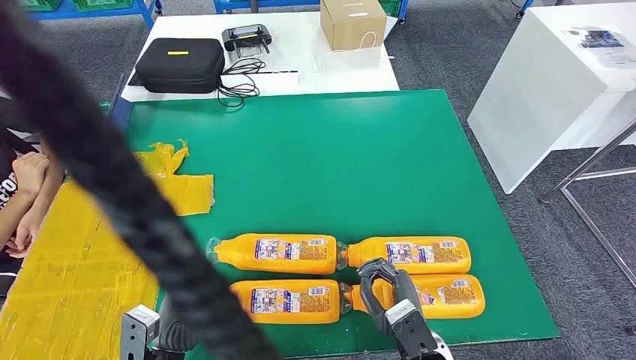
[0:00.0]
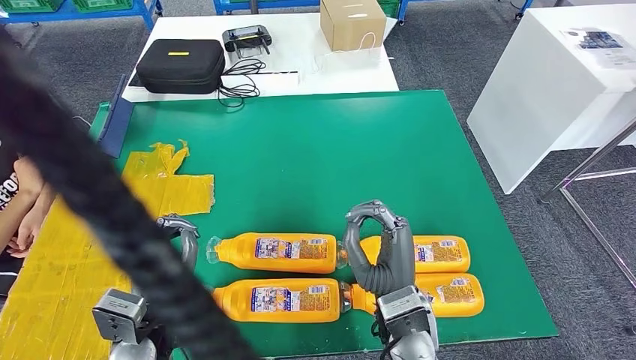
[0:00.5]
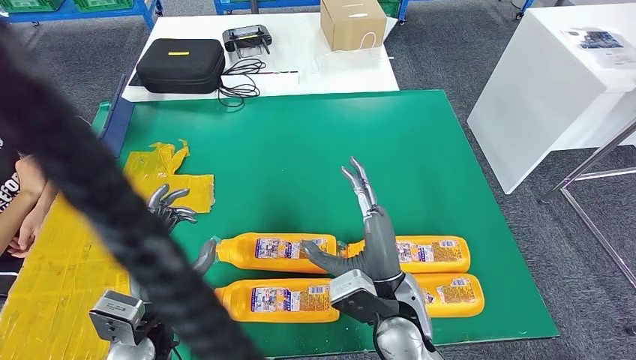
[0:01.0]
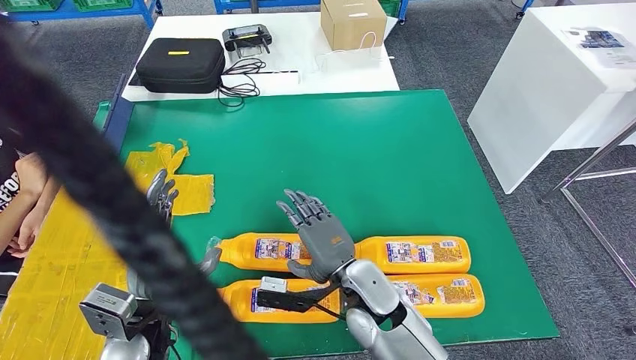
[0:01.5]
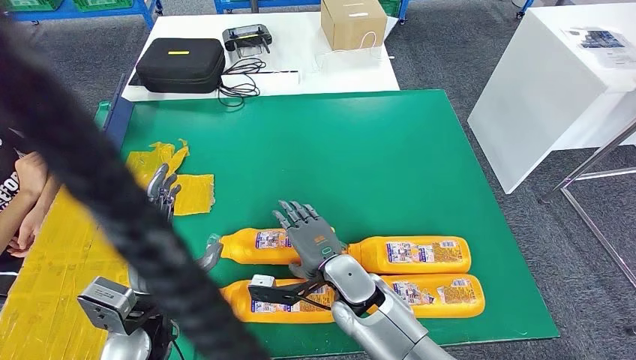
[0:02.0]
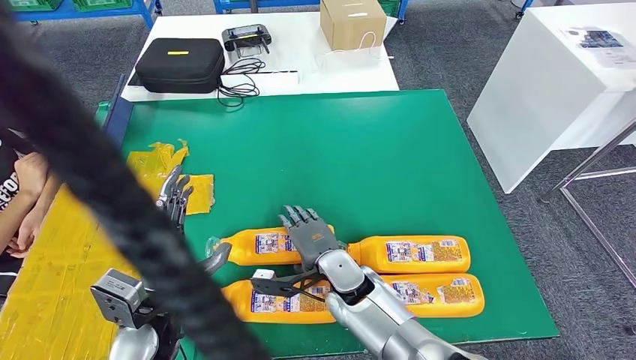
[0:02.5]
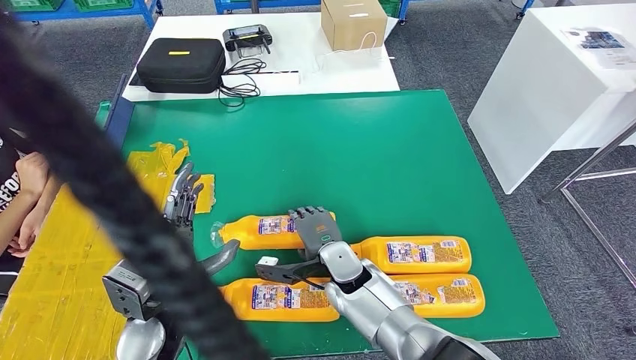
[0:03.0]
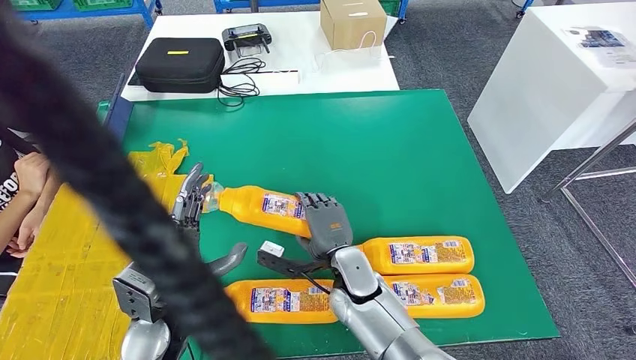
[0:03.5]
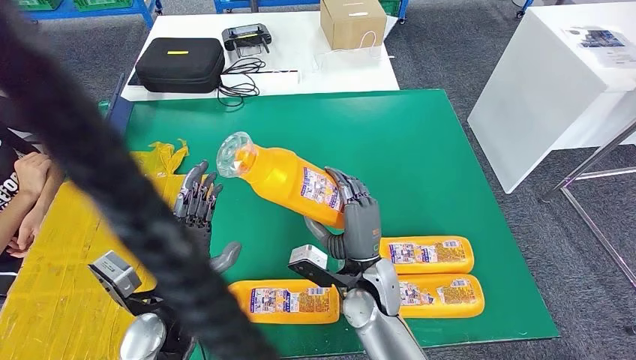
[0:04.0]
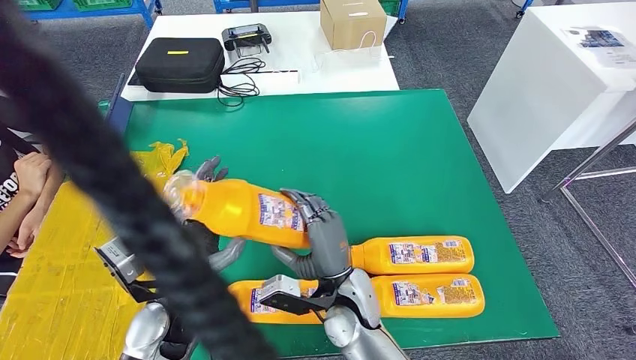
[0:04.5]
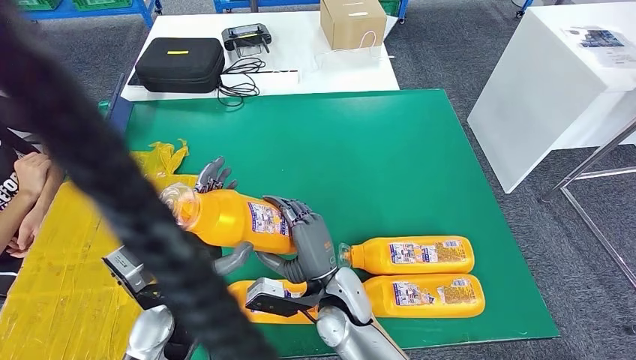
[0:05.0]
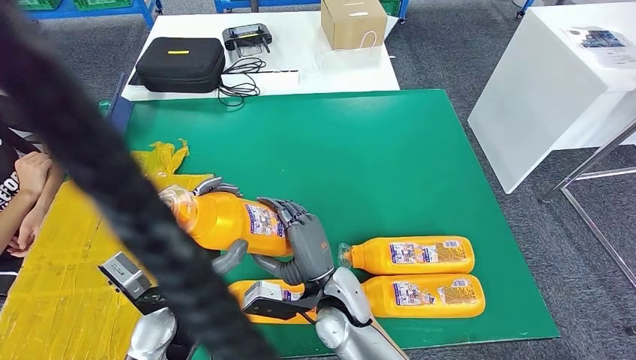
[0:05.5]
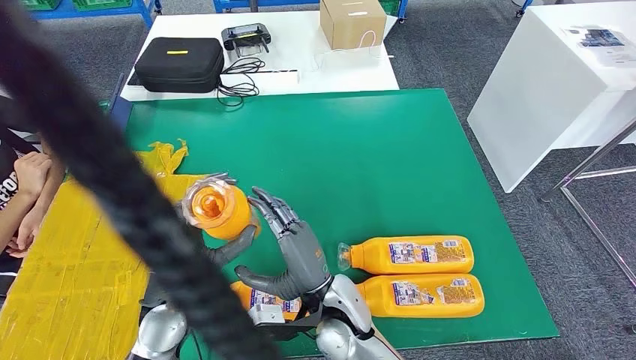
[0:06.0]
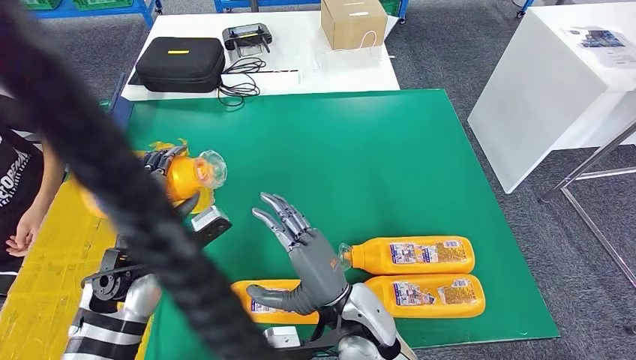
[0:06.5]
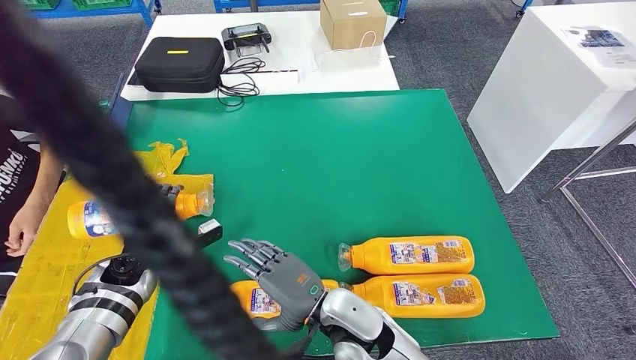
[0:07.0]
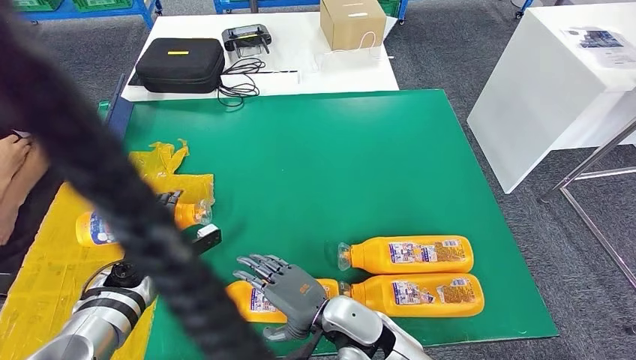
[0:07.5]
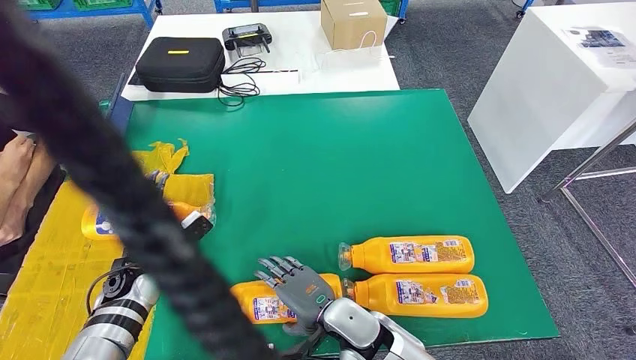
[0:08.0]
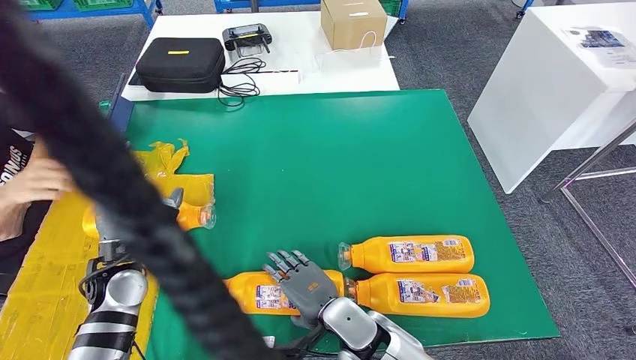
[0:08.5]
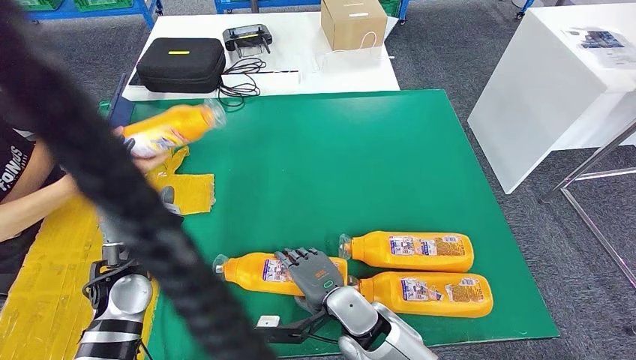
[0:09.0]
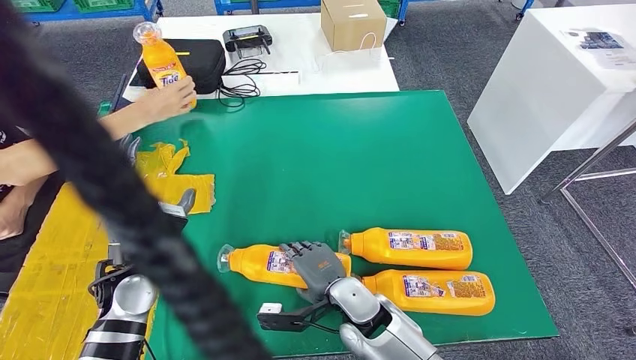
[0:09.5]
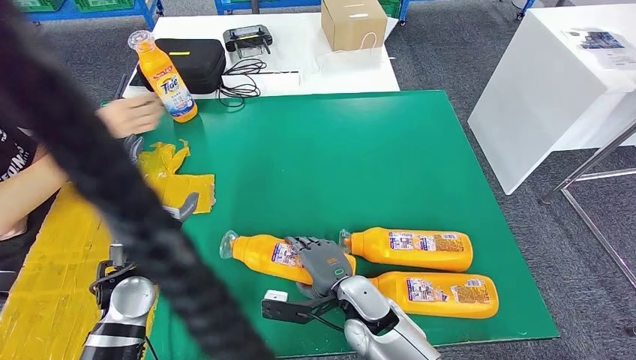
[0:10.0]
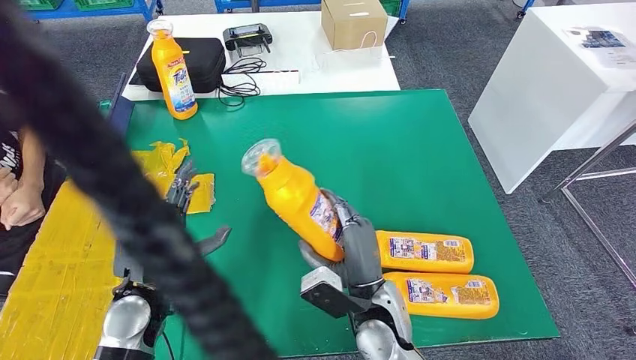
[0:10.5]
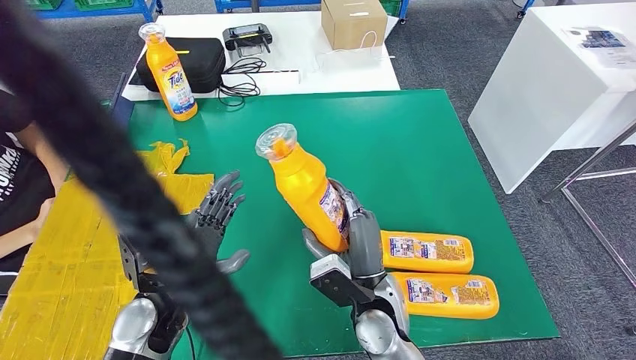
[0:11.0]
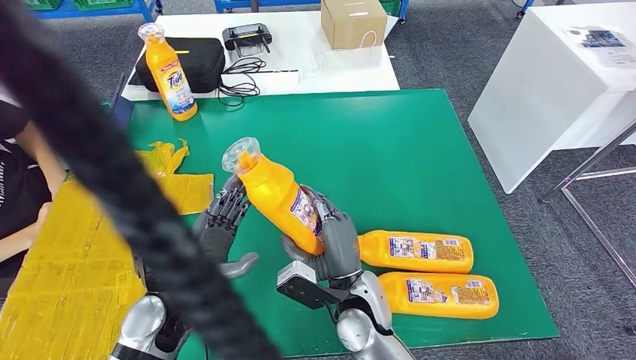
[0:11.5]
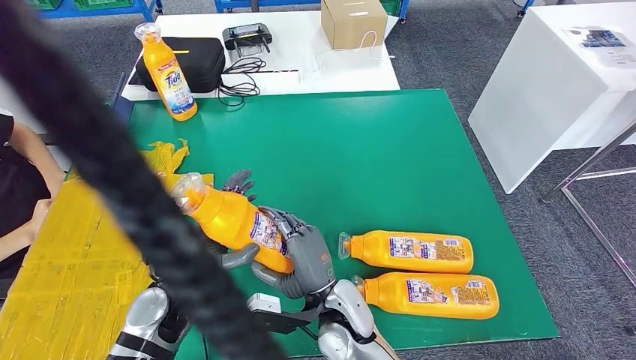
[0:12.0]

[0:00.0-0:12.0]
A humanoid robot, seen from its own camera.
Step, 0:00.0 to 0:05.0: Take the bottle from the table.
Step, 0:05.5 to 0:08.0: Flip the bottle to face forward.
Step, 0:08.5 to 0:11.5: Pick up the bottle from the table.
0:04.0 to 0:06.0: The right hand moves to the left, some 5 cm.
0:06.0 to 0:08.0: The right hand changes place by about 5 cm; the left hand goes approximately 20 cm to the left, downward and forward.

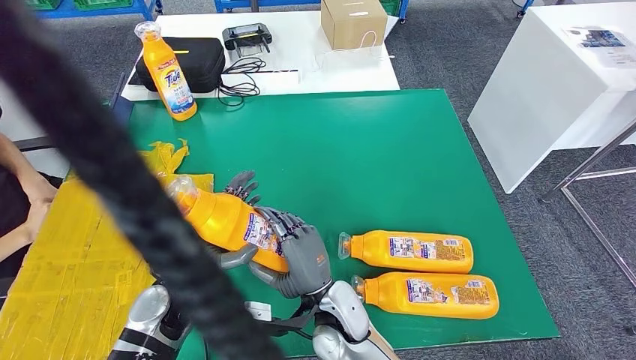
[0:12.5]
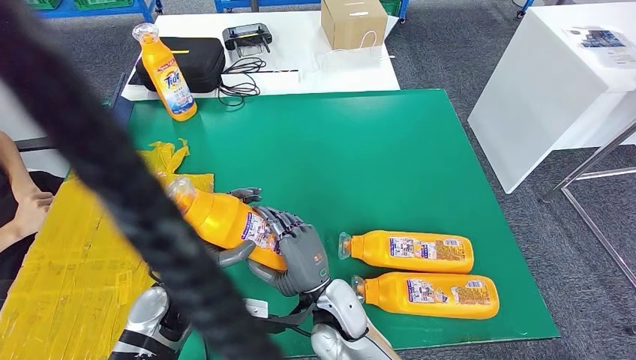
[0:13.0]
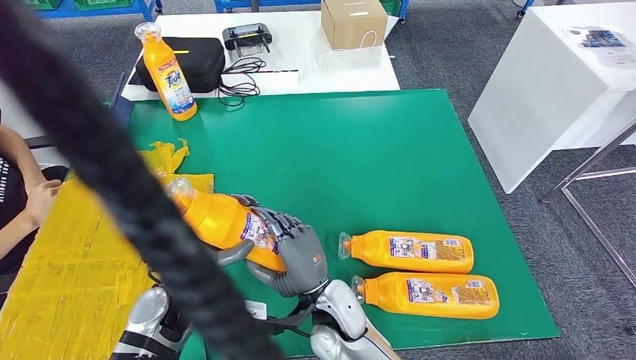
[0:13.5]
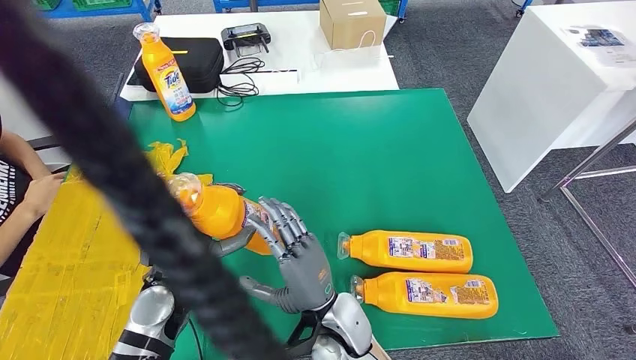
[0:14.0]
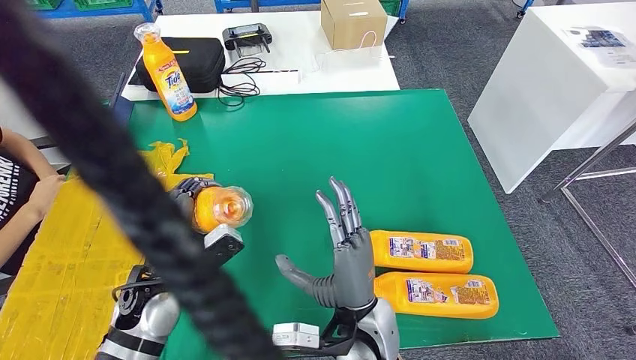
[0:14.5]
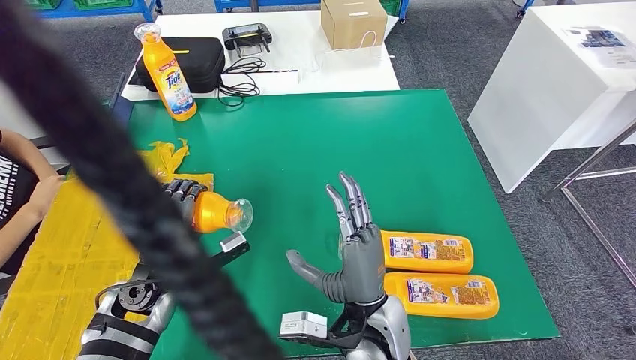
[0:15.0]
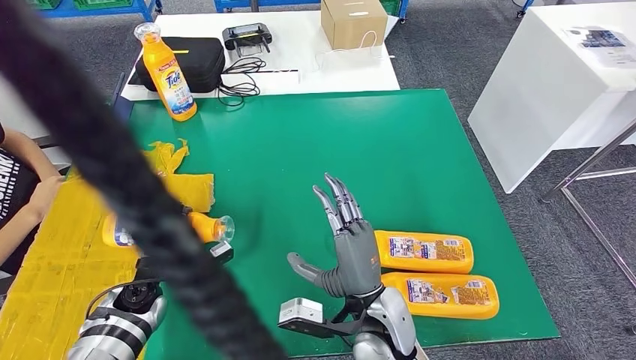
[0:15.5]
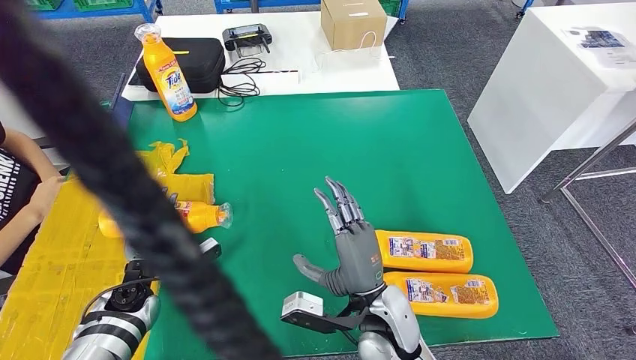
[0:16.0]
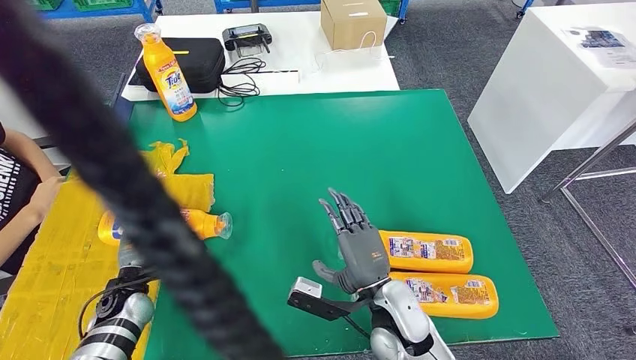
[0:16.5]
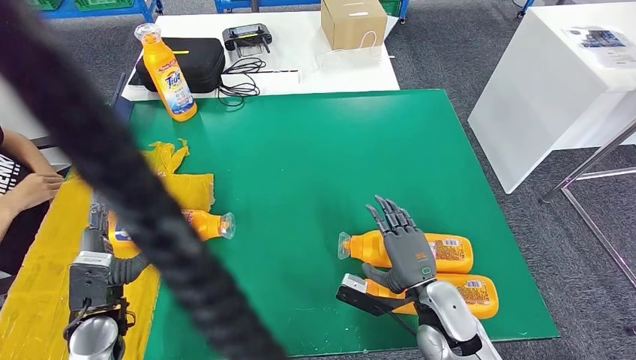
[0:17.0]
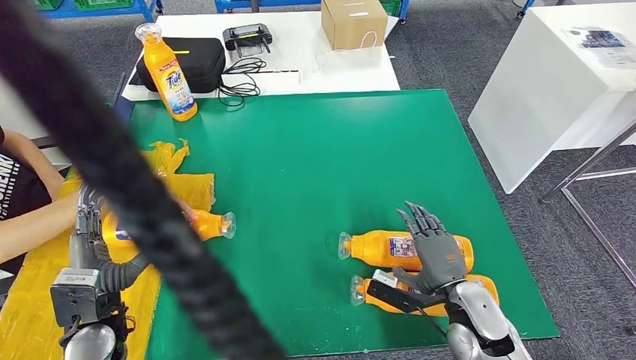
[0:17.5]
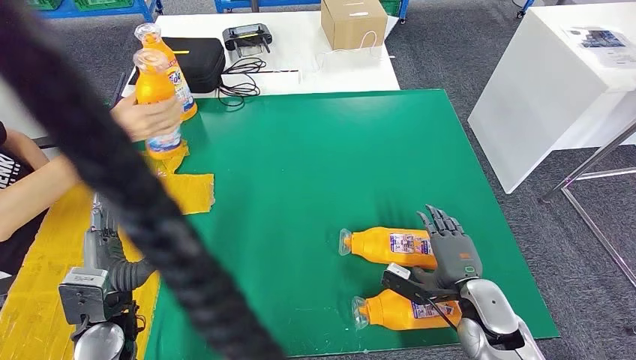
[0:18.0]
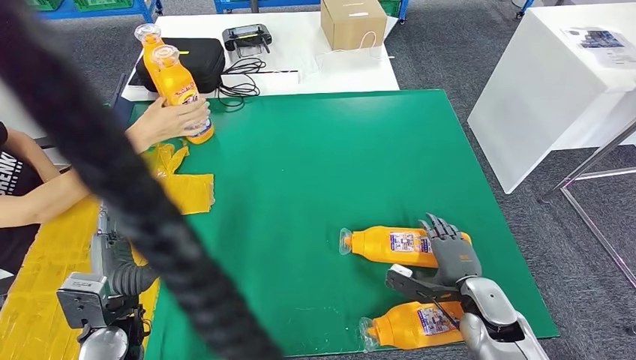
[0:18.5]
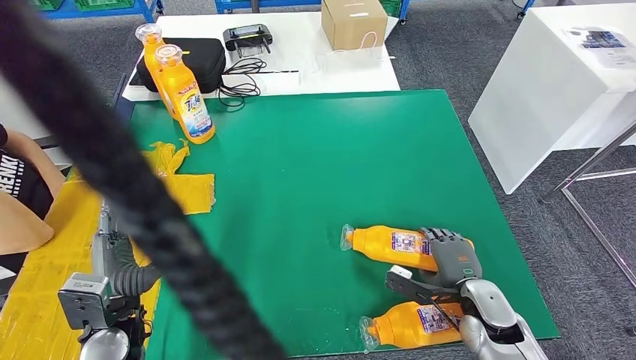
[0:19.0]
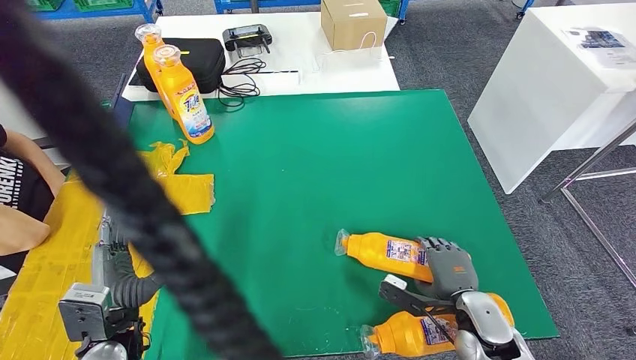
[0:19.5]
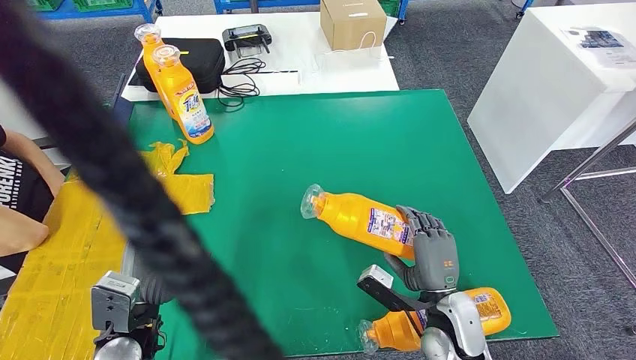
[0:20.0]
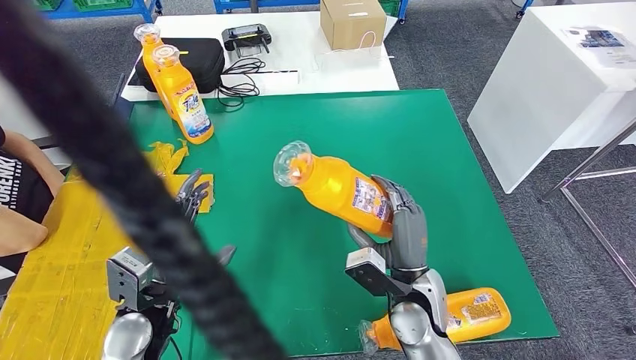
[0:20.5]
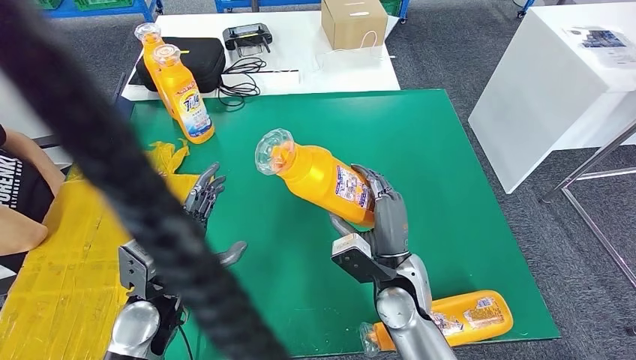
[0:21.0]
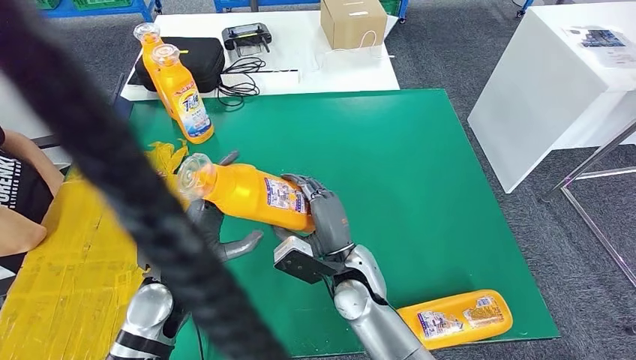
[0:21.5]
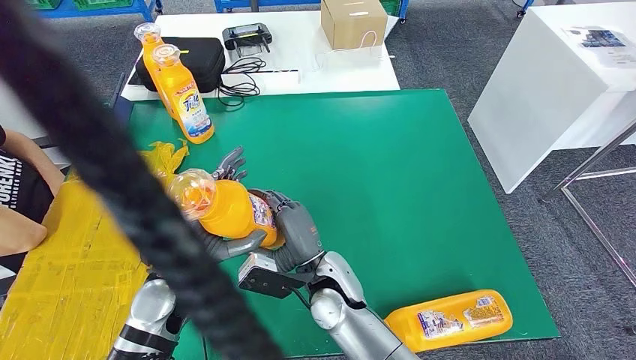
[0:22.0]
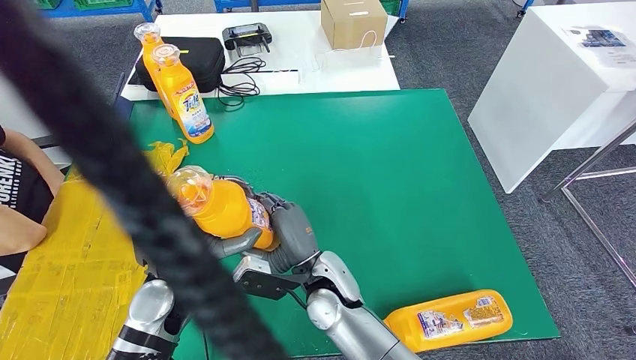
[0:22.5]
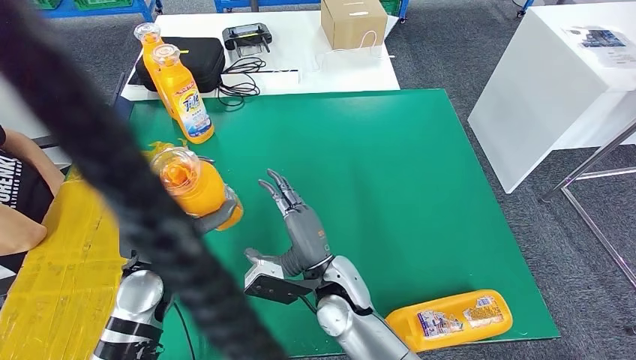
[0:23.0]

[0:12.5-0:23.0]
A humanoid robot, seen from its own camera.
Step, 0:12.5 to 0:15.5: Flip the bottle to face forward.
Step, 0:16.0 to 0:21.0: Pick up the bottle from the table.
0:12.5 to 0:14.5: The right hand shifts by about 5 cm.
0:14.5 to 0:16.5: The left hand heads downward and to the left, covering approximately 15 cm, while the right hand goes about 5 cm to the right.
0:16.5 to 0:19.0: The left hand moves upward and backward, some 10 cm. Meanwhile the right hand moves to the right, about 20 cm.
0:19.0 to 0:21.0: The left hand is displaced to the right by roughly 5 cm, while the right hand heads to the left and upward, covering roughly 15 cm.
0:21.0 to 0:23.0: The right hand is displaced to the left by about 10 cm.
